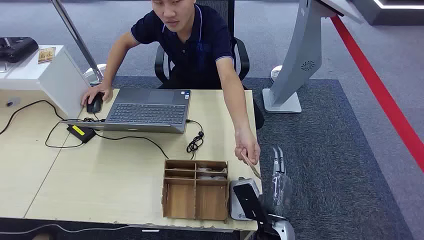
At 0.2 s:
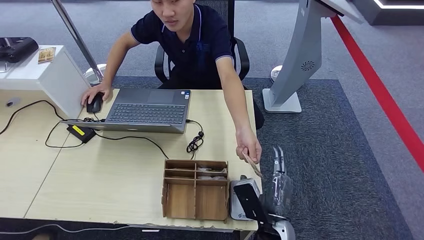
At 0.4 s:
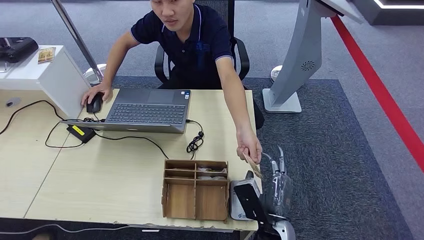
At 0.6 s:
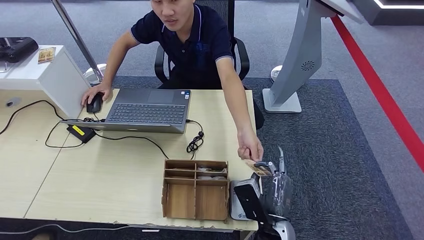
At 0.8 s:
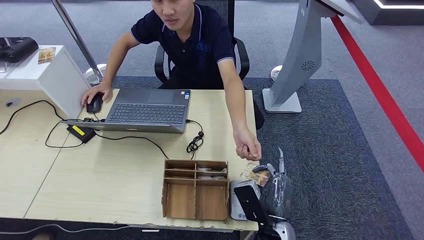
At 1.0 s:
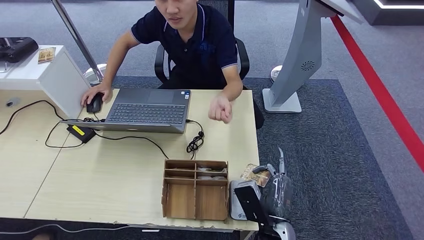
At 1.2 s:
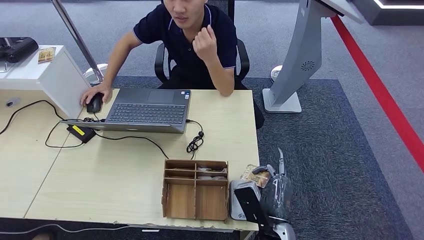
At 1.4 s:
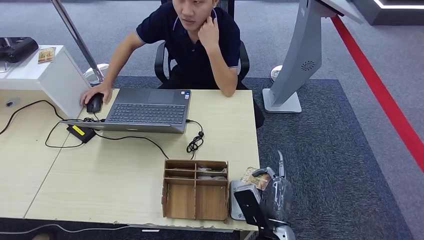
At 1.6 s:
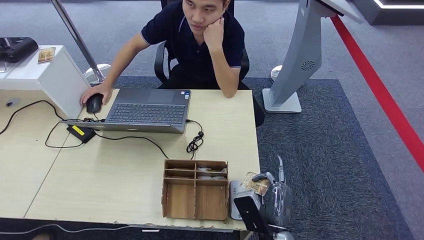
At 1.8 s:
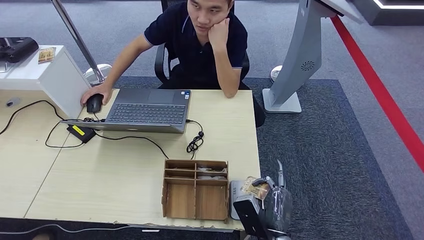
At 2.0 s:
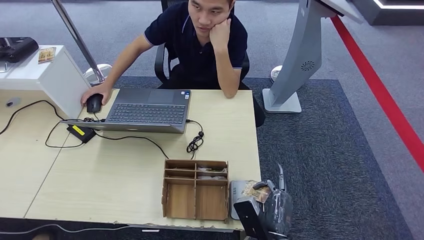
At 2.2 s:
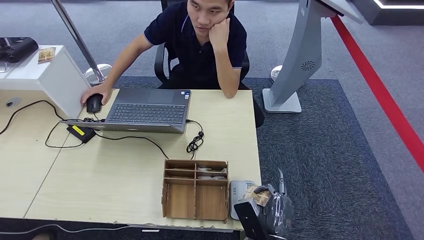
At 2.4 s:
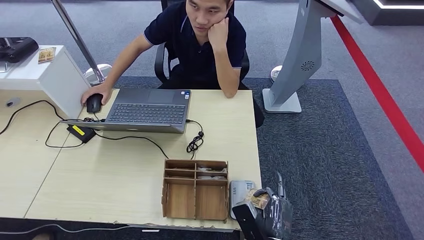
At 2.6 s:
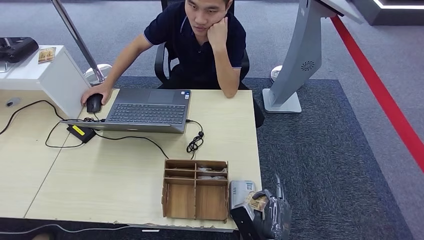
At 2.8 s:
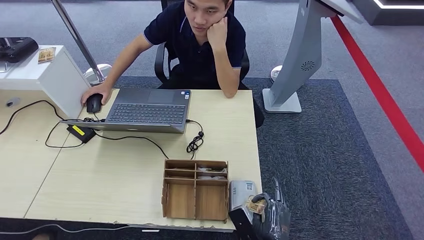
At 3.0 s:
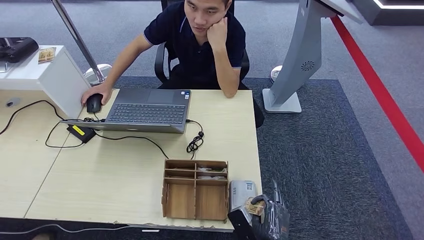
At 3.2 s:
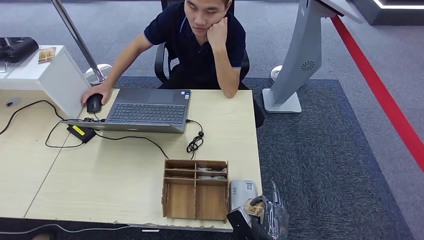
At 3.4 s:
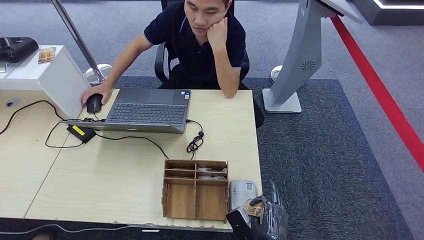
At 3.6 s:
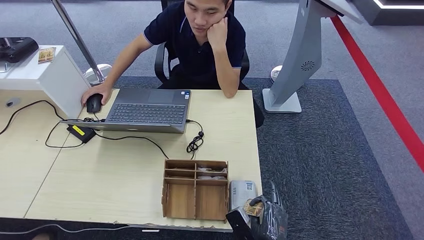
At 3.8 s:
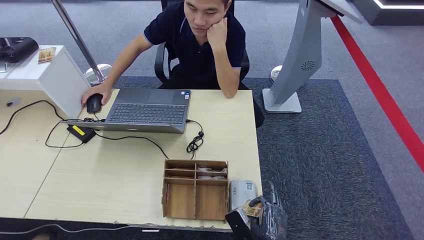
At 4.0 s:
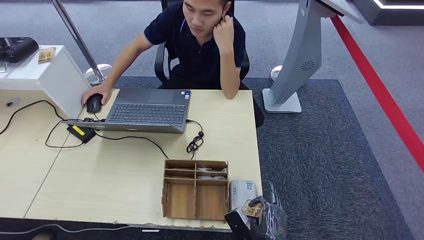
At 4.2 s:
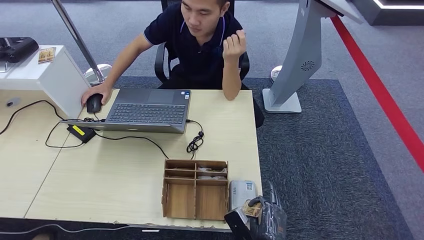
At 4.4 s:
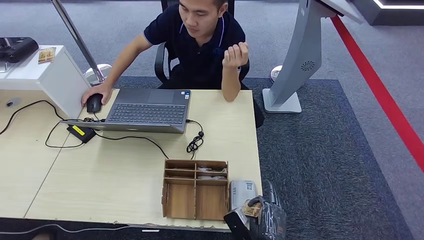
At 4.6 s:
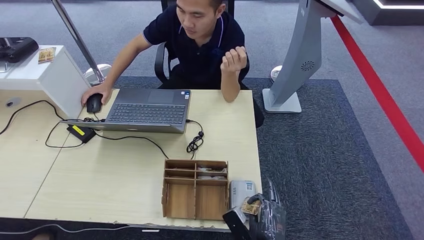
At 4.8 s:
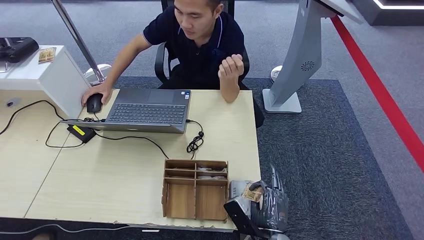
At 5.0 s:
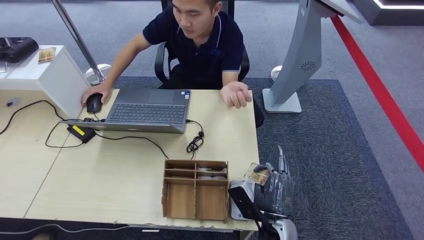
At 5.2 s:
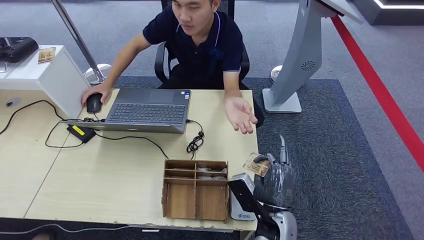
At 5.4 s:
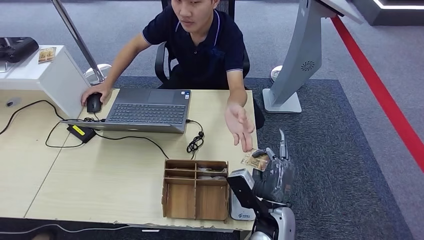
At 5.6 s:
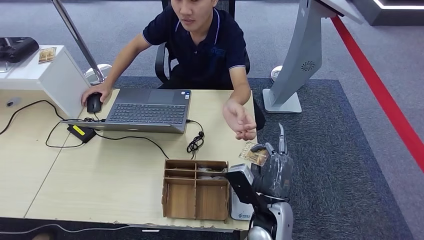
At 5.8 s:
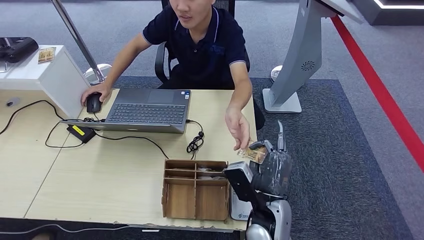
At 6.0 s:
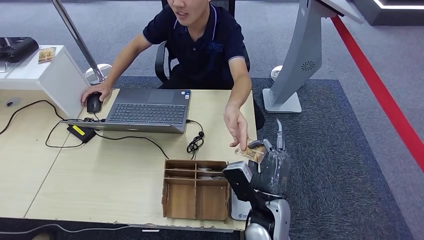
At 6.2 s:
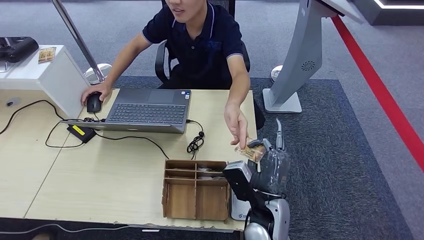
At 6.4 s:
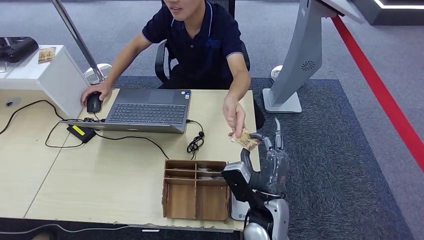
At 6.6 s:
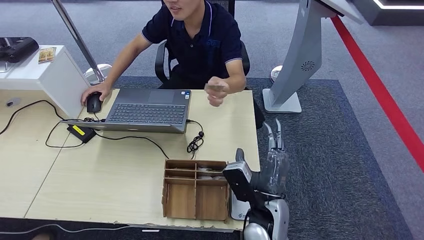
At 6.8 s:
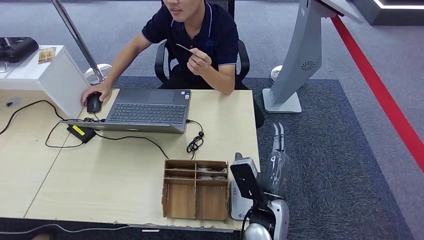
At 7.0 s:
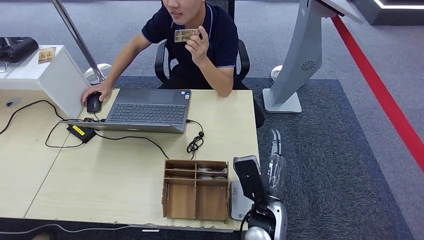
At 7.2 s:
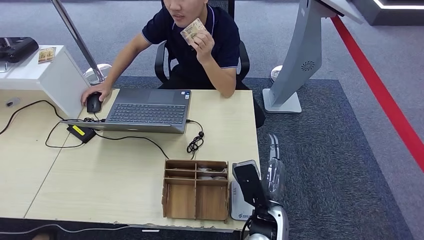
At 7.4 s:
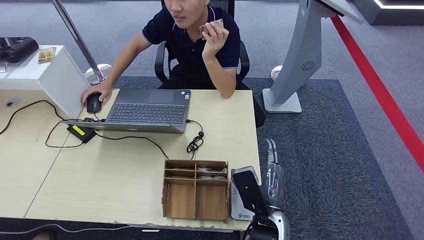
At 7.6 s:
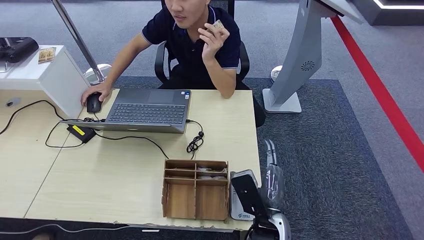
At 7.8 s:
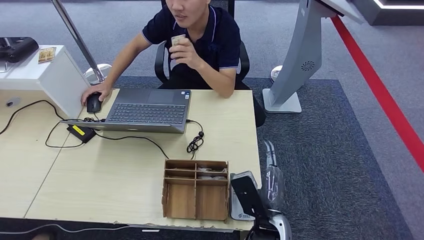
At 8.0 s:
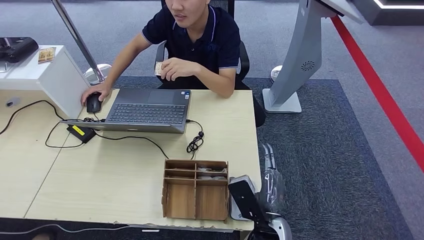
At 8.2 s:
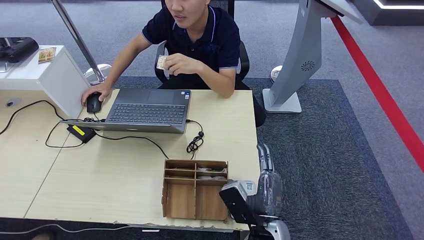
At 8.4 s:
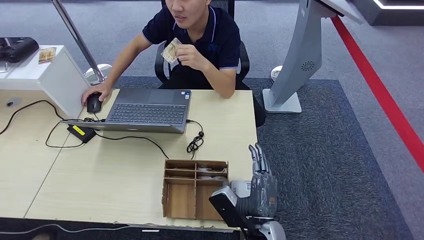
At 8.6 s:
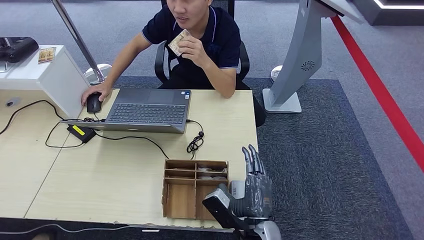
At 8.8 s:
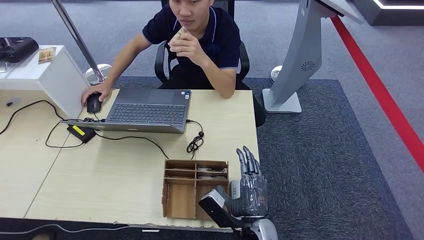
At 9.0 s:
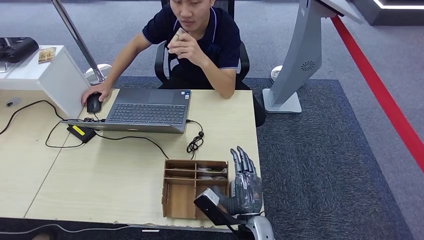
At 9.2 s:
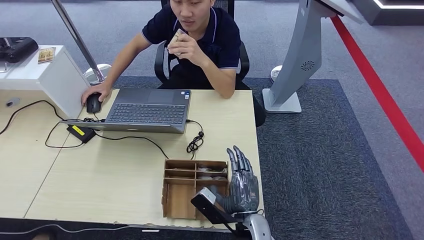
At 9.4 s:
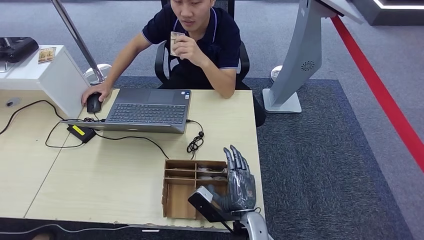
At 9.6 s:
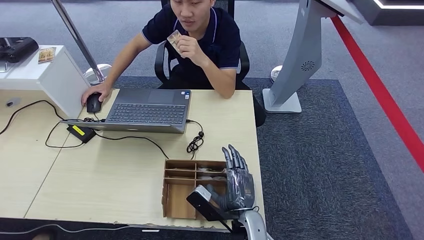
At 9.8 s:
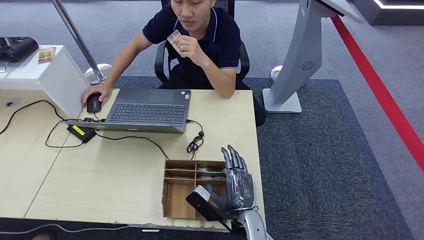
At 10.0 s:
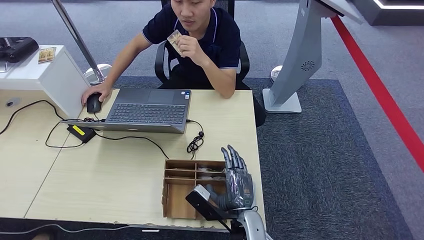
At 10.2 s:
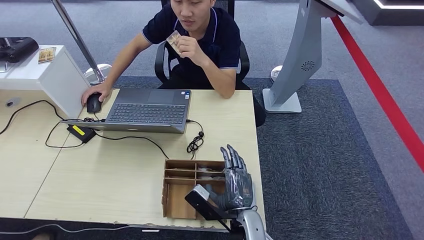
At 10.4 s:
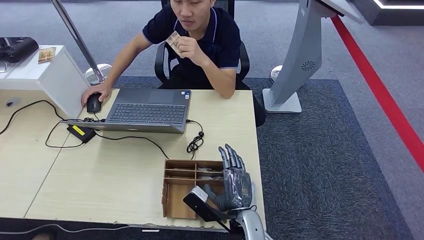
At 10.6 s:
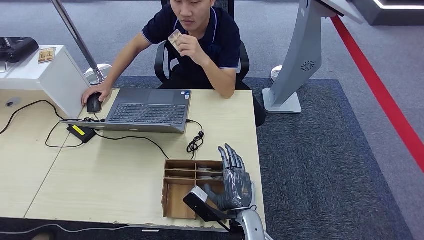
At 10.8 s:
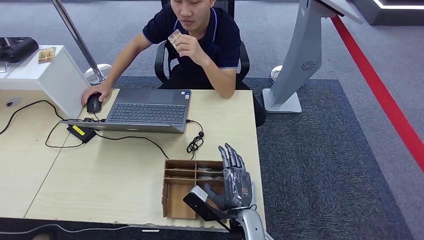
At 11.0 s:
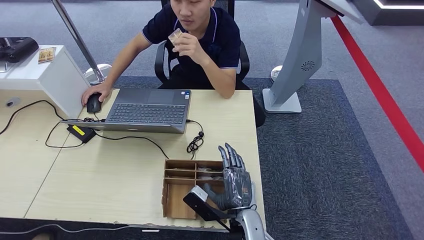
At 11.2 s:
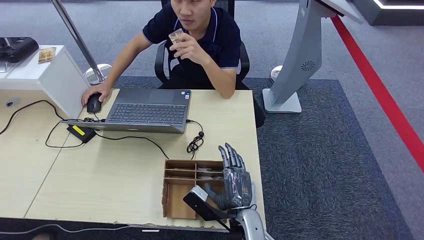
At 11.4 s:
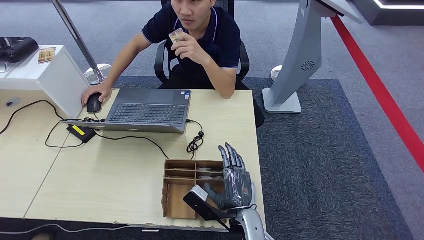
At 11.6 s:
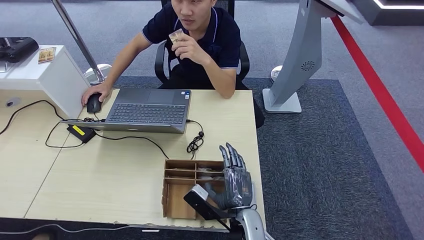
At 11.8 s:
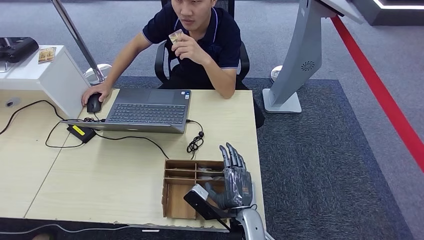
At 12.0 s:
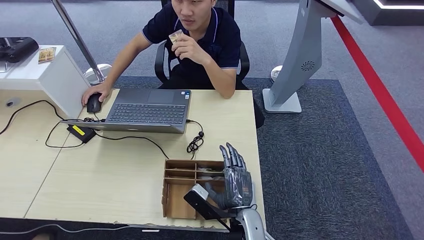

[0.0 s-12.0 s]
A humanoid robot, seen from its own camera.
Step, 0.0 to 0.8 s: Take the ID card from the person's hand.
Step, 1.0 to 3.4 s: Place the ID card on the card reader.
Step, 3.6 to 6.6 s: Hand the ID card to the person.
1.6 to 3.0 s: The right hand shifts roughly 5 cm downward.
3.0 to 4.4 s: The two hands keep their place.
4.4 to 6.0 s: The right hand moves upward and forward, roughly 15 cm.
6.0 to 7.6 s: The hands move only a little.
9.0 to 10.4 s: The hands move only a little.
10.4 to 12.0 s: Neither hand changes place.

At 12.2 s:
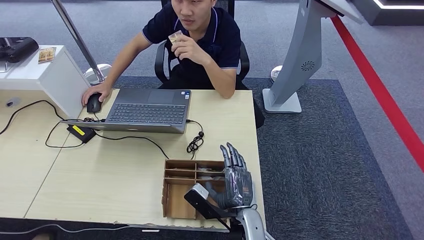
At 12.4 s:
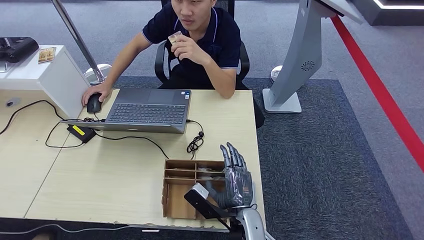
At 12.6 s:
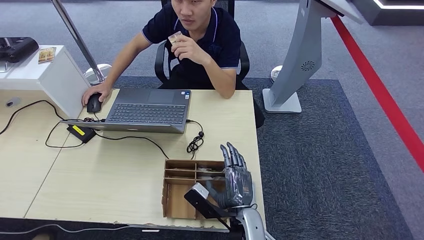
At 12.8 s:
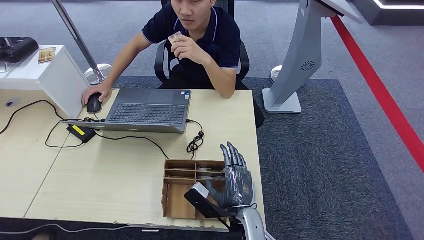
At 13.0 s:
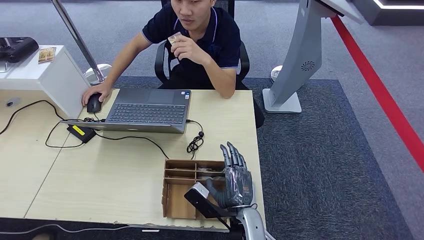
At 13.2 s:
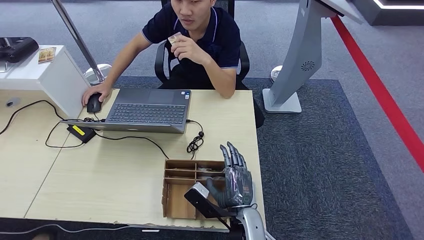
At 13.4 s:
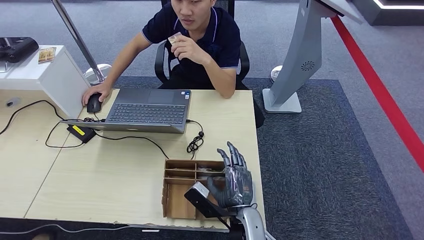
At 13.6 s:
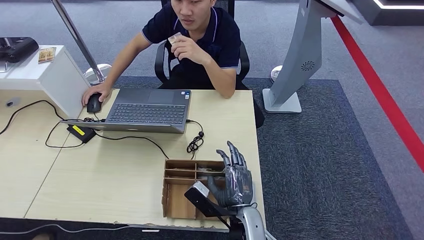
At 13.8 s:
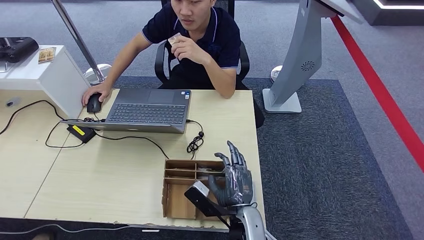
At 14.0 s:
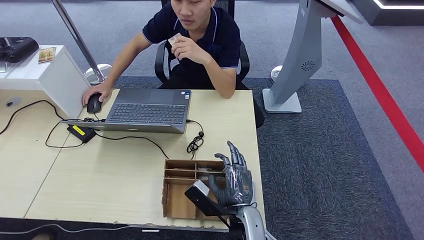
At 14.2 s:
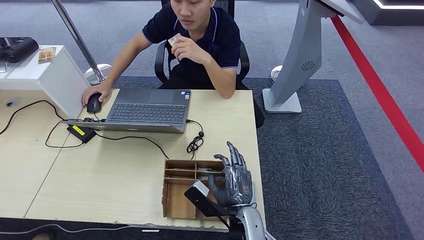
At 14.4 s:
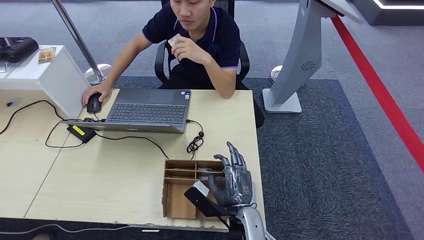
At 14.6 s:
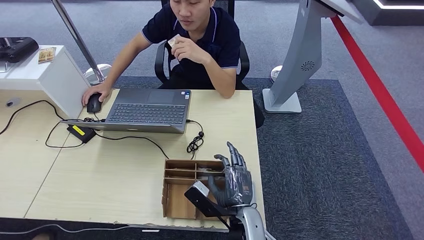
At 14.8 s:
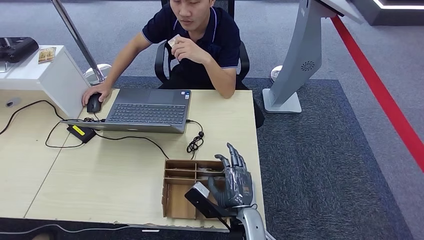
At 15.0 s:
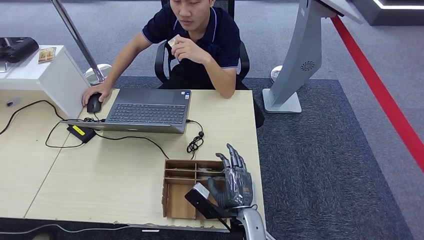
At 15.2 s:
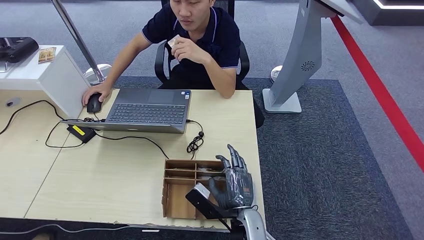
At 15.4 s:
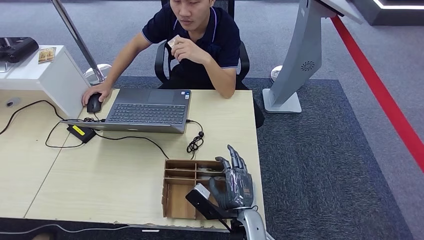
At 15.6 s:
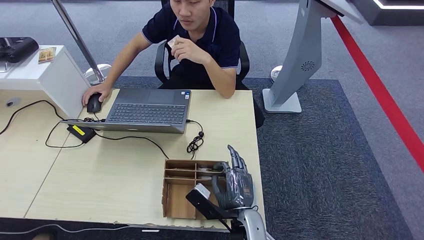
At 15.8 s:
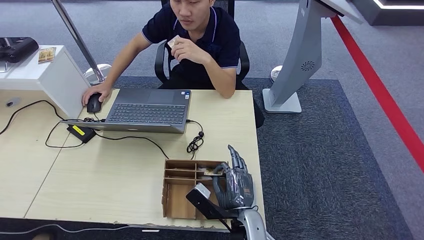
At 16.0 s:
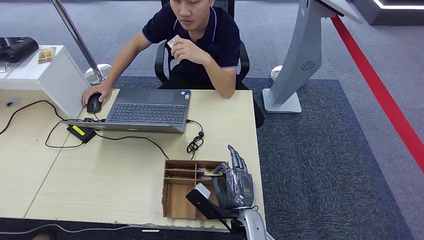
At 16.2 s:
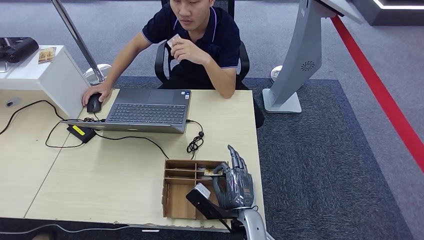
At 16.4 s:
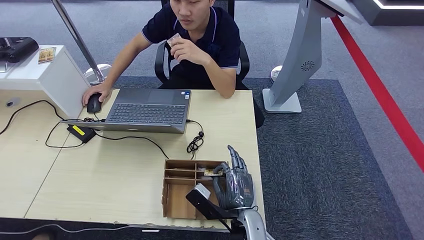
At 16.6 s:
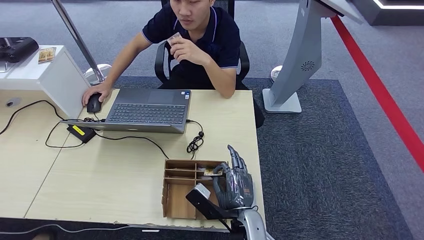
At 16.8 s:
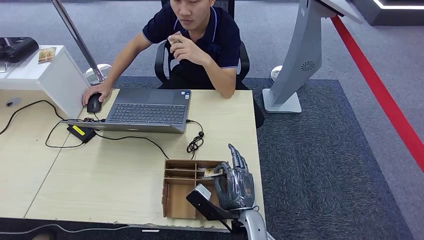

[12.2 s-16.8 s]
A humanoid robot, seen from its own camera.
12.2 to 16.8 s: Neither hand changes place.
